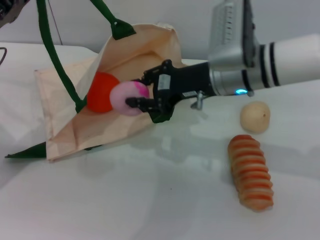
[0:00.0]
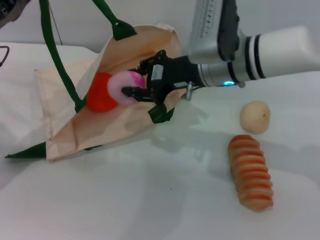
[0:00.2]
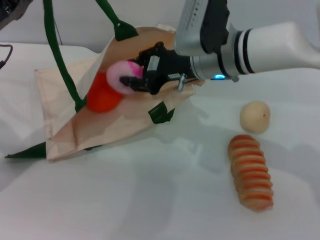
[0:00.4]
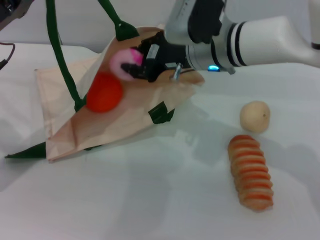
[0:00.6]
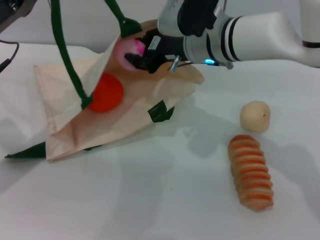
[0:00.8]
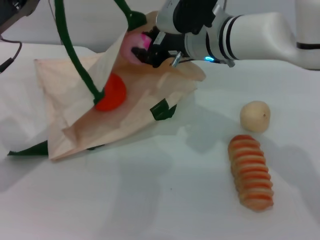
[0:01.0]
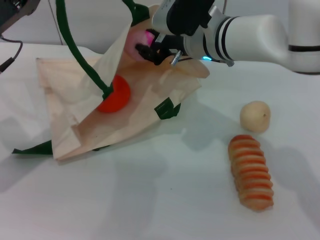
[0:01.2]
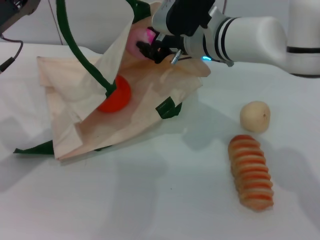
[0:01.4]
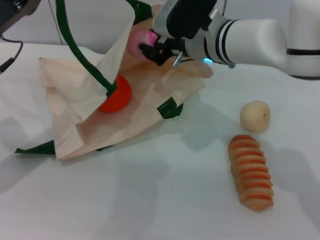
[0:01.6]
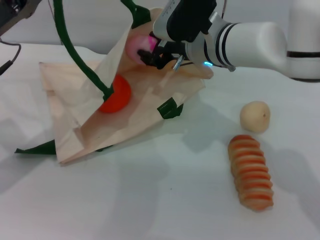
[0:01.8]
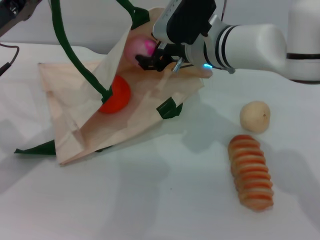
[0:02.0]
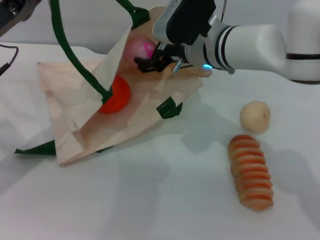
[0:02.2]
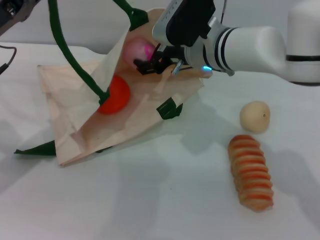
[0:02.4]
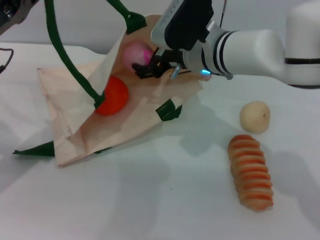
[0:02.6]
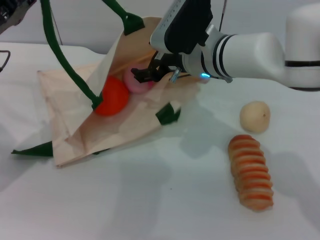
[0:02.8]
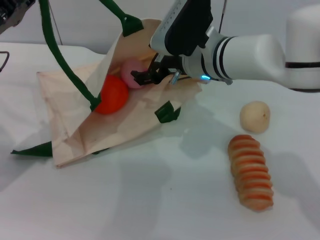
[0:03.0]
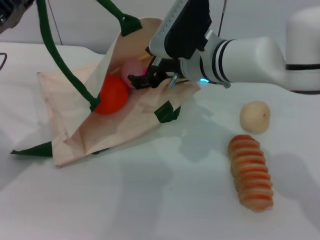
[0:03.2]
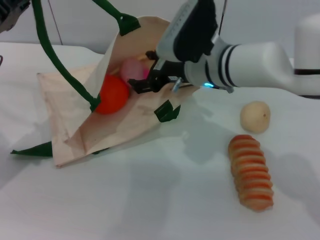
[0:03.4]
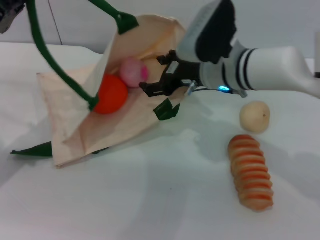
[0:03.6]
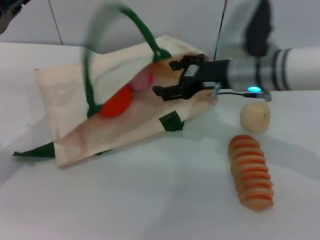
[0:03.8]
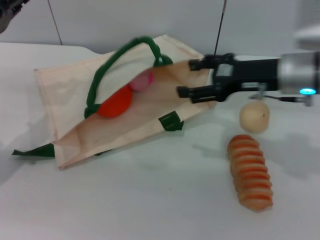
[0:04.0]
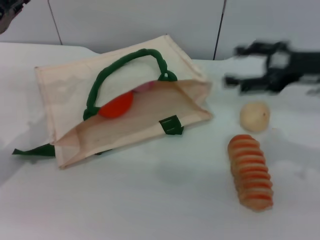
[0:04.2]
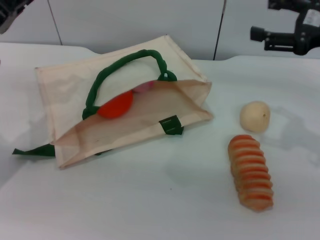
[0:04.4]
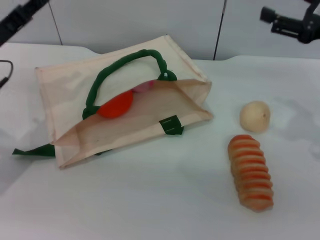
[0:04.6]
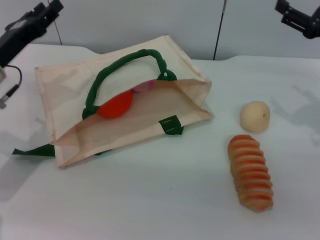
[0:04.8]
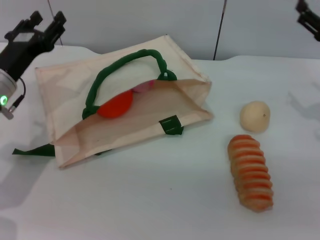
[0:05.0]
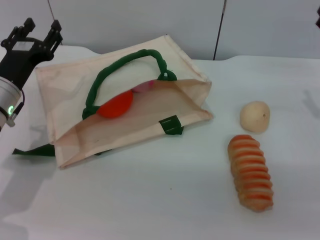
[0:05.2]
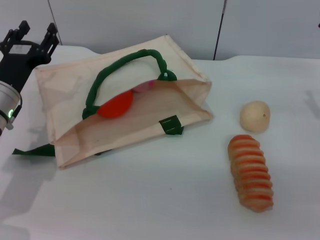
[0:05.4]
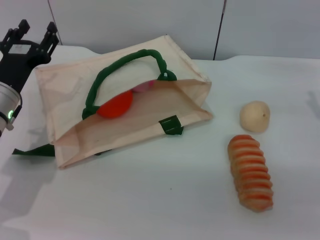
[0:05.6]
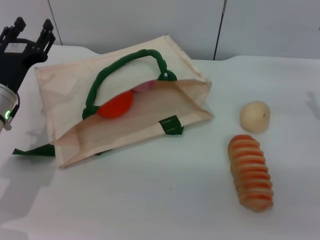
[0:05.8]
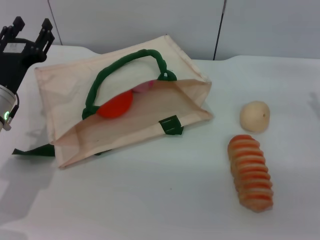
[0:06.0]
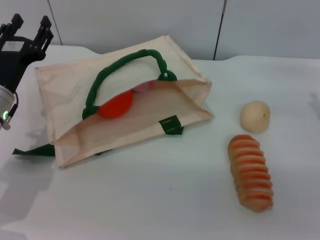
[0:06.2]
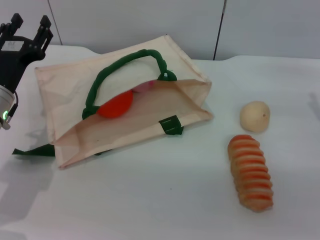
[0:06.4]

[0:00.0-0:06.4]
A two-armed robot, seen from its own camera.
Task of the whole recording: pick up the orange and peach from the table and place it in the white handbag.
Step, 0:00.0 to 0:03.4: Place the peach into the woven bag with the right gripper.
0:00.0 to 0:01.6: The right gripper moves about 5 cm.
0:01.6 to 0:03.2: The right gripper opens its fingers.
0:03.2 to 0:04.8: The left gripper opens its fingers; the right gripper heads to the right, covering approximately 25 cm.
0:04.8 to 0:06.4: The right gripper shifts roughly 5 cm downward. Meanwhile the left gripper changes place by approximately 5 cm, and opens up.
